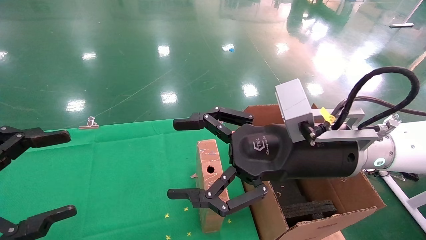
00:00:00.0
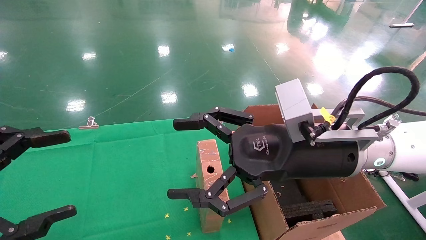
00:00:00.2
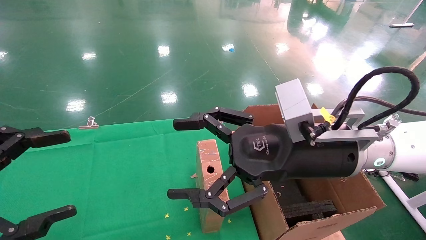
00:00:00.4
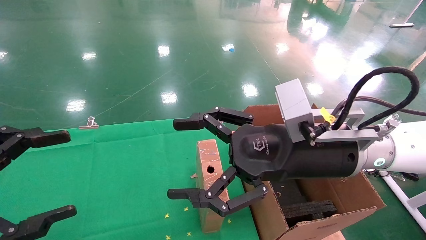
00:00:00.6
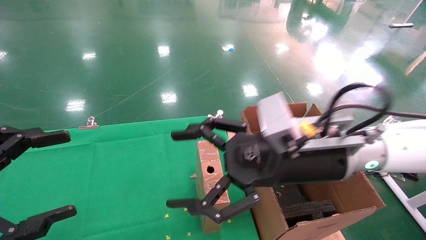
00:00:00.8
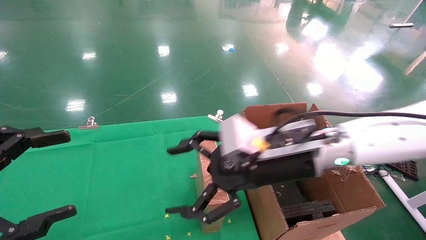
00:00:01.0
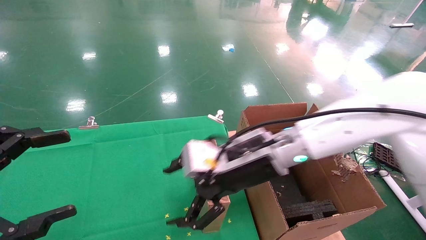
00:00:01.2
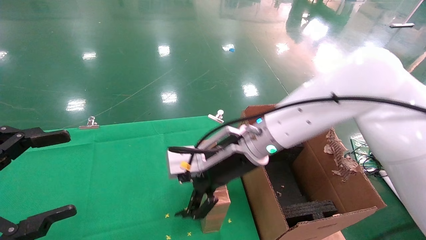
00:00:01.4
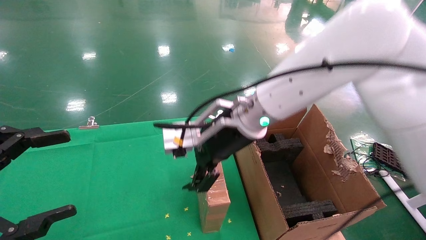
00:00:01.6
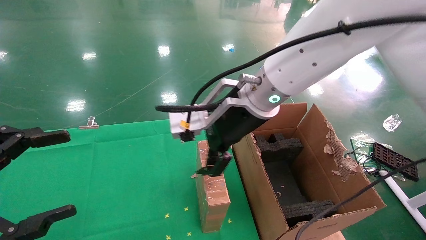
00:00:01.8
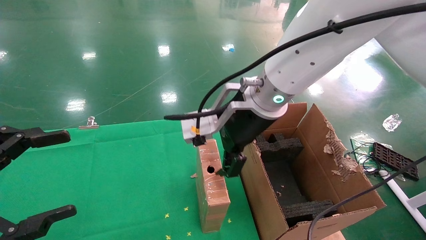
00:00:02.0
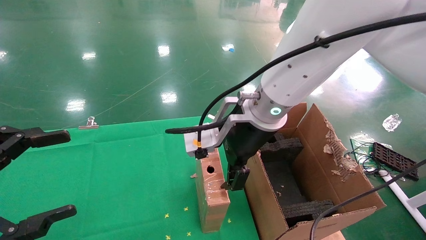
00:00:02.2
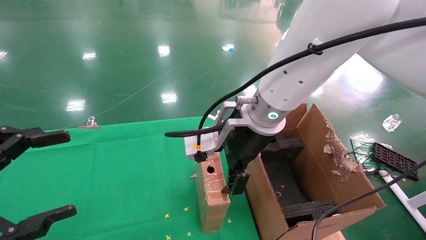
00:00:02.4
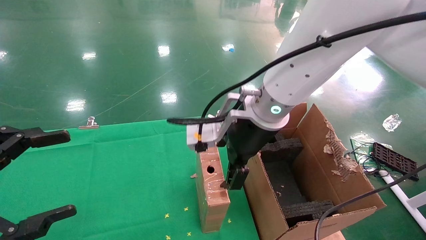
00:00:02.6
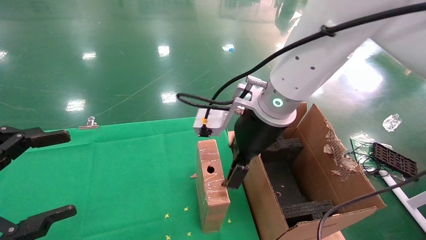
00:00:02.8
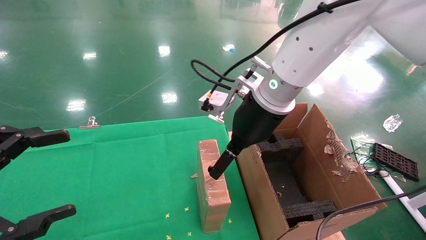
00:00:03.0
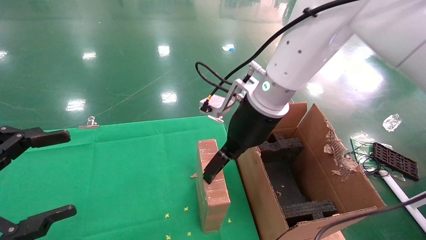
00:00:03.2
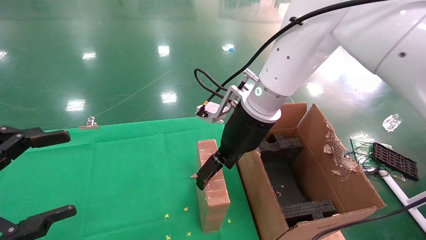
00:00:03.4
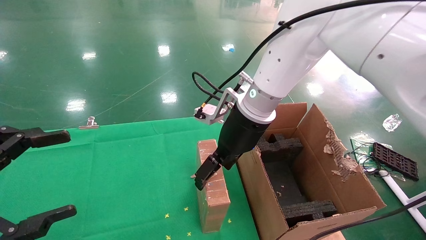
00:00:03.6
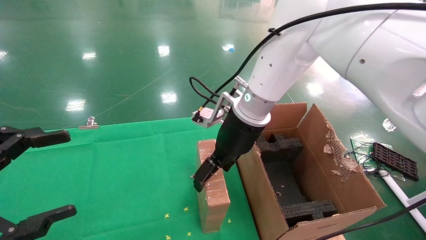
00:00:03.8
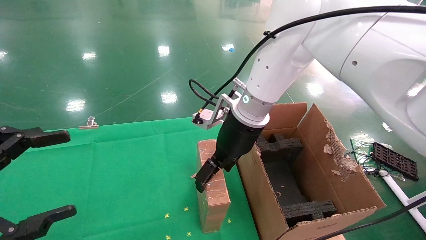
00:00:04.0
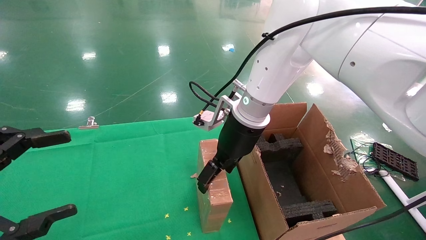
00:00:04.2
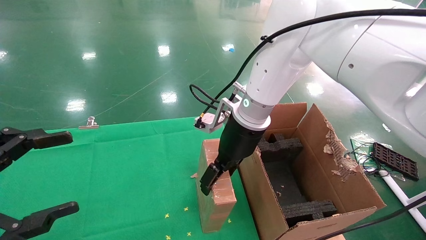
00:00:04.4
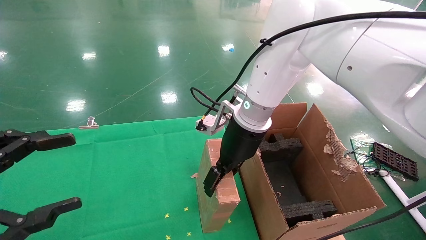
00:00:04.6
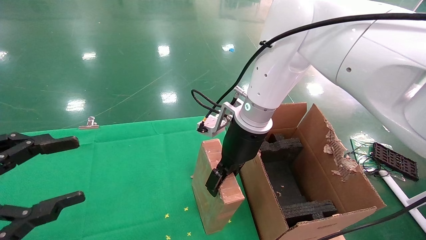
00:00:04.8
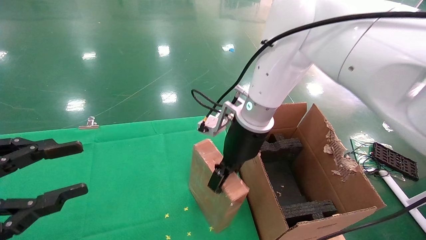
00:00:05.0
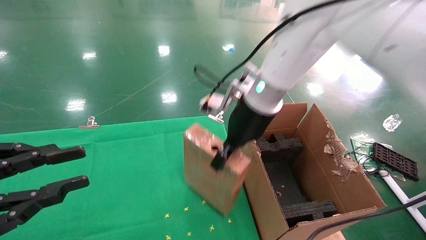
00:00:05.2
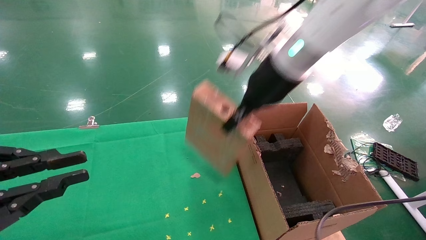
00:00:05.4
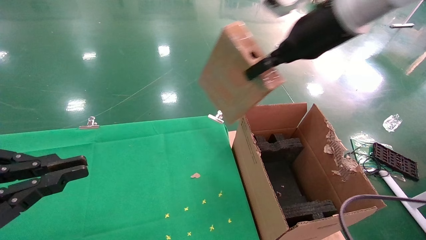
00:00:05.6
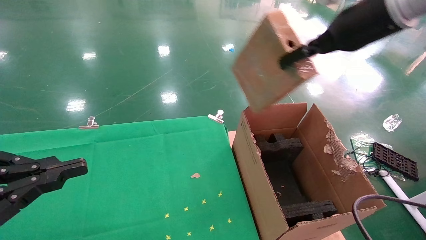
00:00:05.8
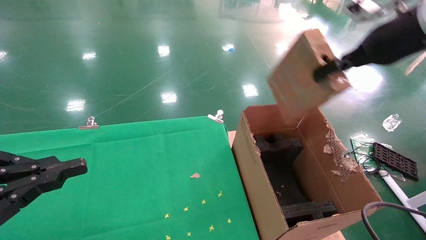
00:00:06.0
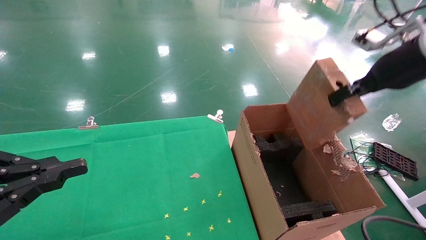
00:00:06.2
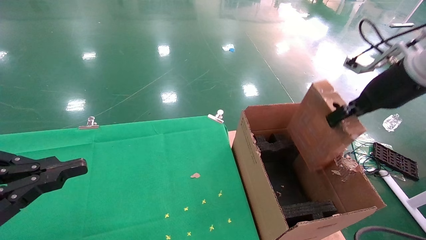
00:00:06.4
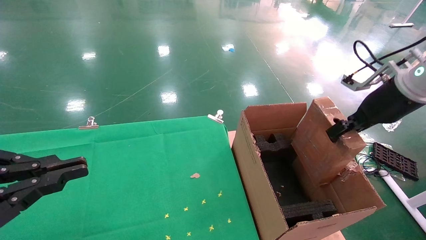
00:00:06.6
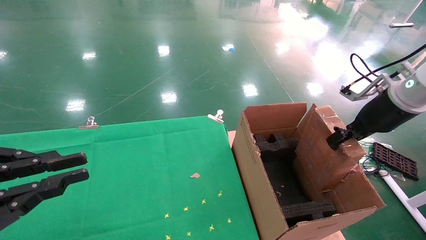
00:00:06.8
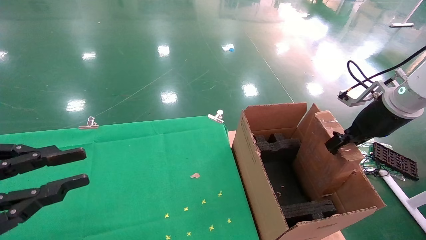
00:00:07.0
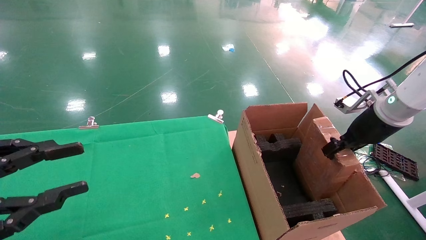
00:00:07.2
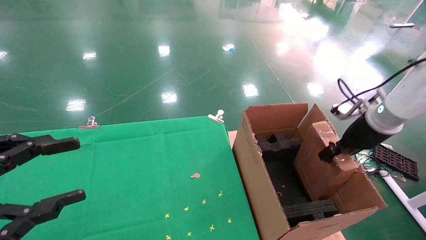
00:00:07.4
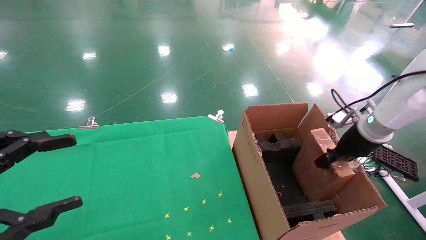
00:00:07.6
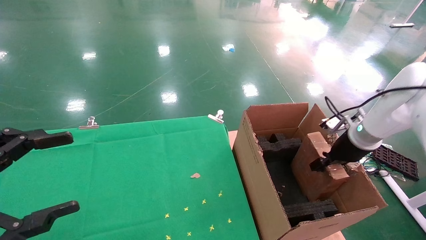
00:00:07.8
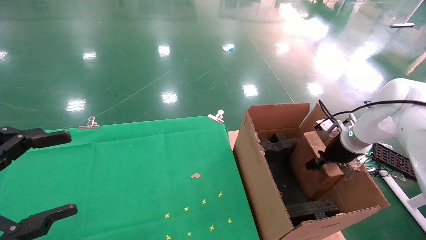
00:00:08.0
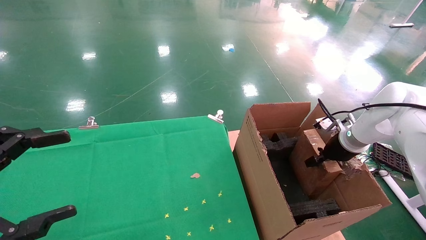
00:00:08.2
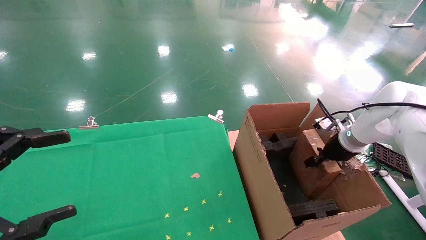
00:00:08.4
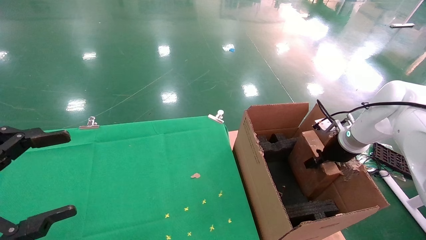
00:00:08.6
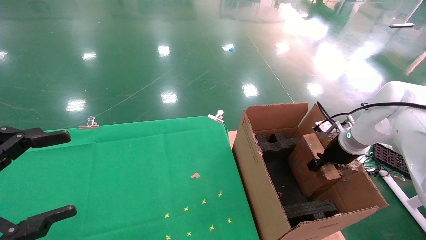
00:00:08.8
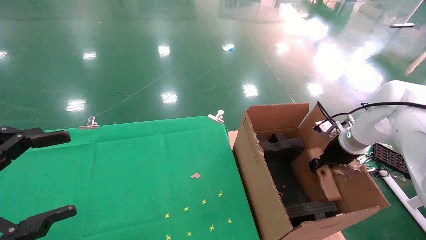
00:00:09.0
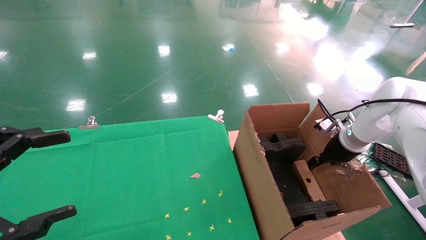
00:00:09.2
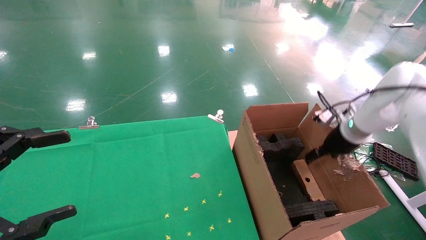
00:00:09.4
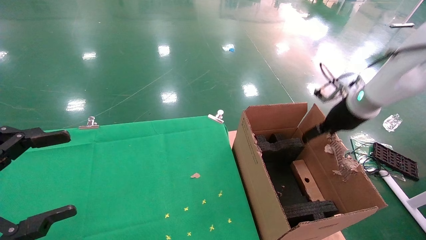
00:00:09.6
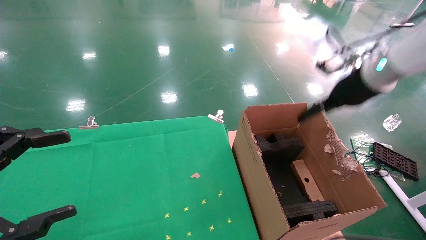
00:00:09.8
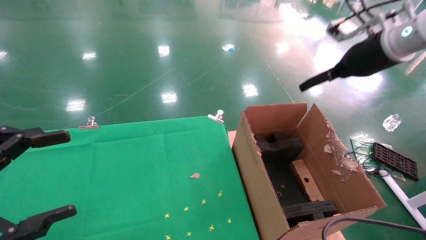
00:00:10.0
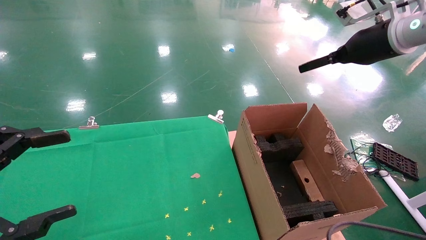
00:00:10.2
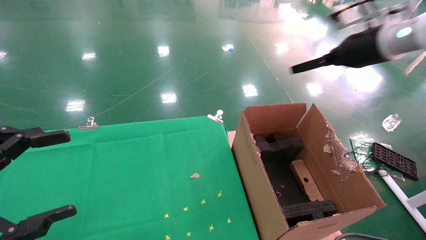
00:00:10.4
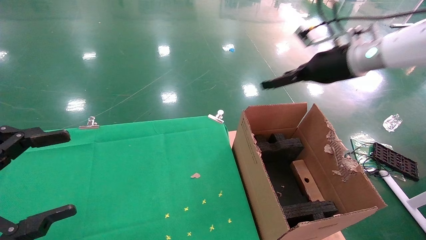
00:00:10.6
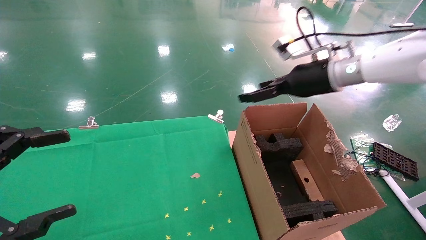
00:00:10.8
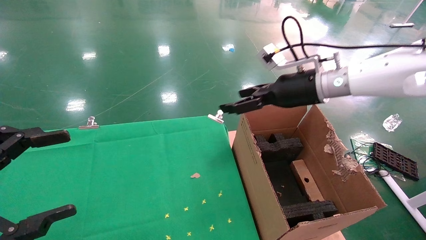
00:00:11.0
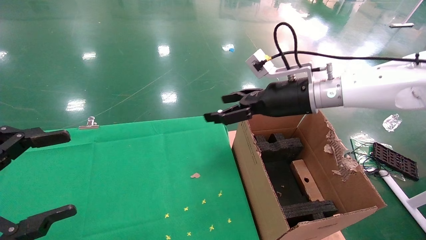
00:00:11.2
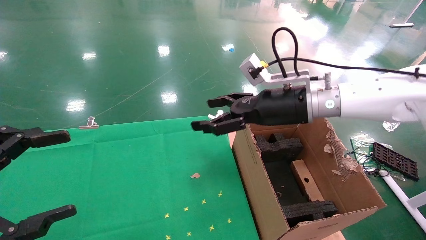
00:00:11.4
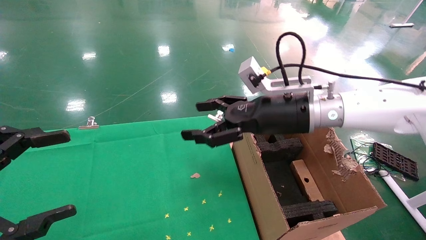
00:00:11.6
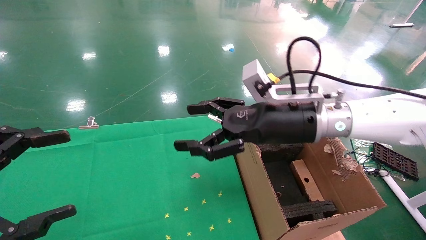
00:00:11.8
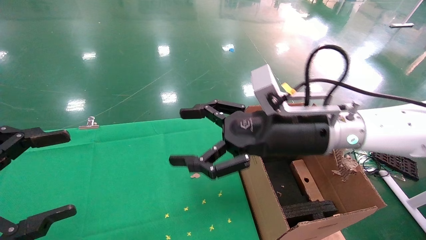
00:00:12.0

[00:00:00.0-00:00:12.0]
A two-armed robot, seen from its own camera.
Task of the whole recording: using a robotic arm to pick up a cardboard box and palace it the carton.
Step, 00:00:00.8 to 00:00:05.0: Pick up the mouse and the power cord paper box.
Step, 00:00:05.2 to 00:00:09.2: Place the mouse and the power cord paper box into the container.
00:00:00.0 to 00:00:01.6: The right gripper moves to the left and forward, roughly 15 cm.
00:00:03.0 to 00:00:04.4: The right gripper ends up some 5 cm from where it was.
00:00:04.4 to 00:00:06.0: The right gripper goes roughly 30 cm to the right and upward, and closes up, while the left gripper closes up.
00:00:06.0 to 00:00:07.6: The right gripper is displaced downward by approximately 20 cm, while the left gripper opens its fingers.
00:00:07.6 to 00:00:09.0: The right gripper changes place by roughly 5 cm.
00:00:09.0 to 00:00:10.4: The right gripper heads upward, covering approximately 20 cm, and opens up.
00:00:10.4 to 00:00:12.0: The right gripper shifts roughly 25 cm to the left, downward and backward.

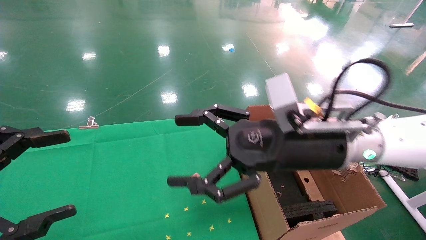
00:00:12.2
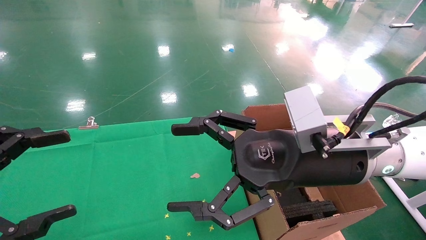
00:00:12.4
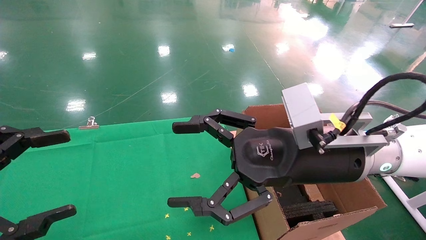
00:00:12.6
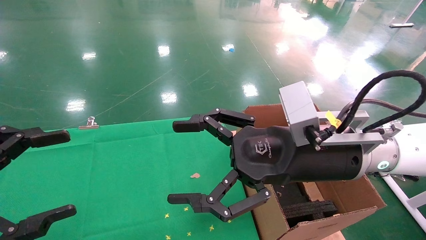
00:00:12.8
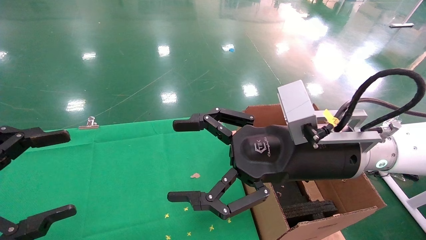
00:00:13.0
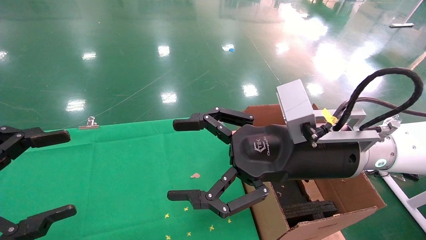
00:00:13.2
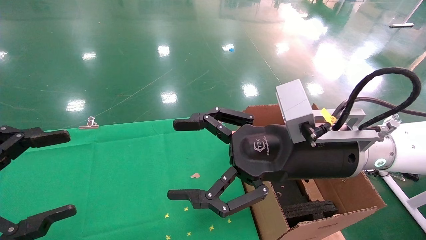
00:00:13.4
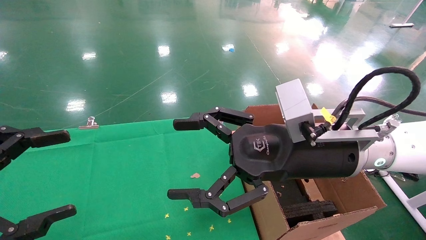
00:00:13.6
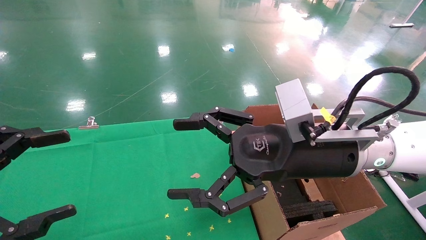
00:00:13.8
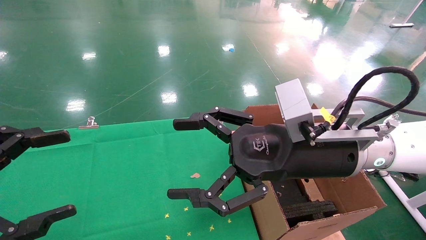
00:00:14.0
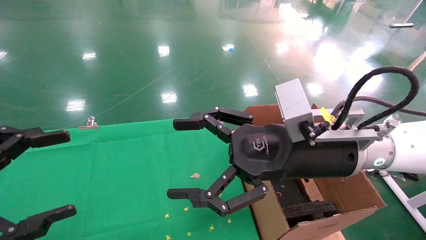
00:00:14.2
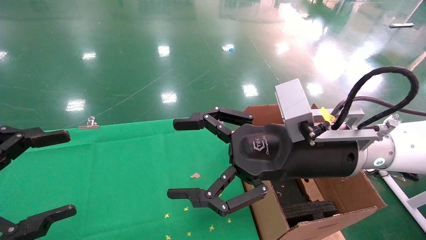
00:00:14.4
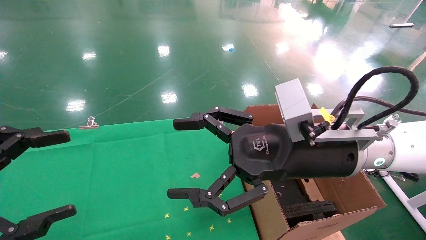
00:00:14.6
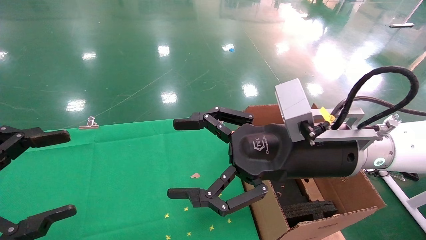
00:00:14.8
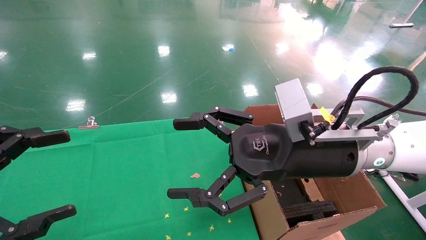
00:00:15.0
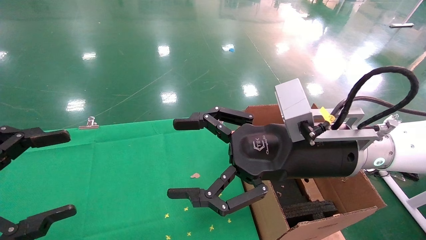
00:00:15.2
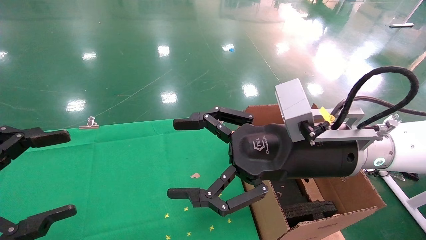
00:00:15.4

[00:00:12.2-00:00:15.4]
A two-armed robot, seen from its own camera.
Task of the whole recording: using a robotic arm to pick up a cardboard box and palace it the carton.
00:00:12.2 to 00:00:13.8: There are only small adjustments of the grippers.
00:00:13.8 to 00:00:15.4: The two grippers keep their place.

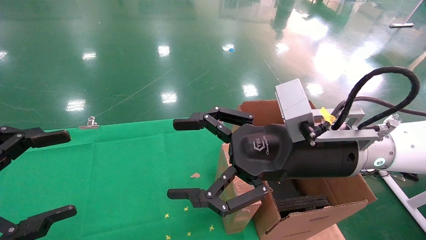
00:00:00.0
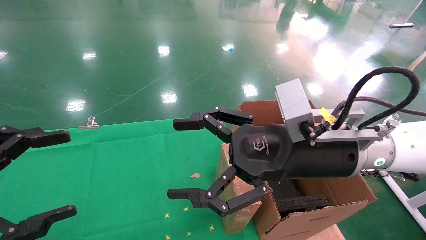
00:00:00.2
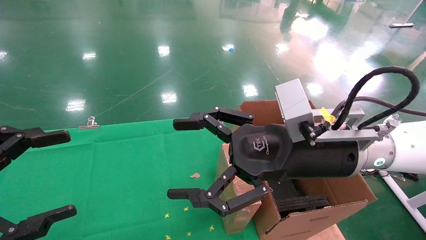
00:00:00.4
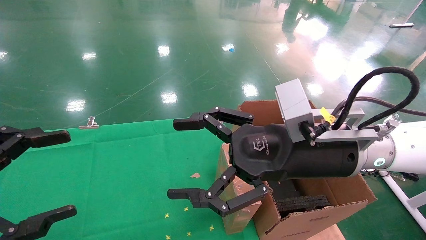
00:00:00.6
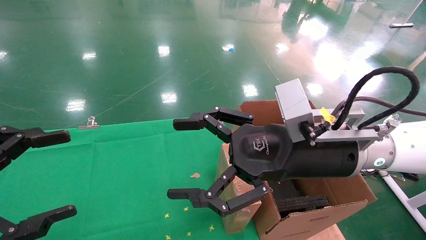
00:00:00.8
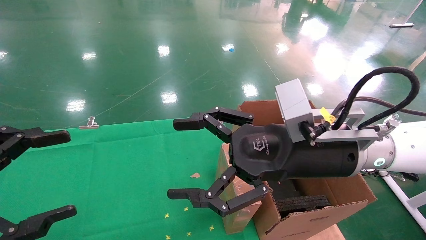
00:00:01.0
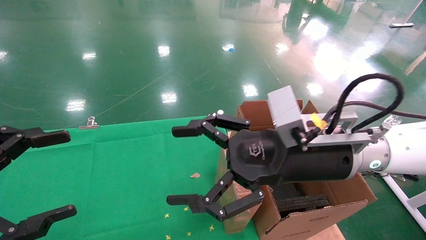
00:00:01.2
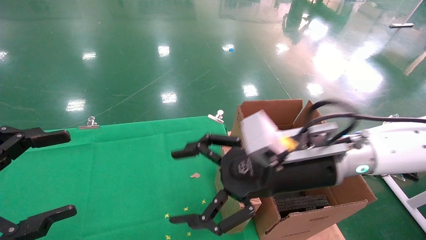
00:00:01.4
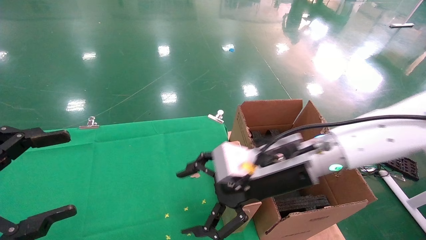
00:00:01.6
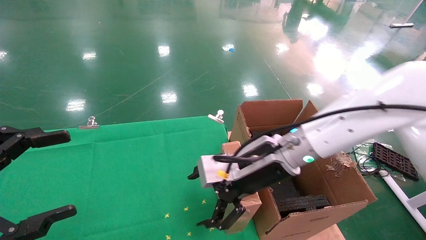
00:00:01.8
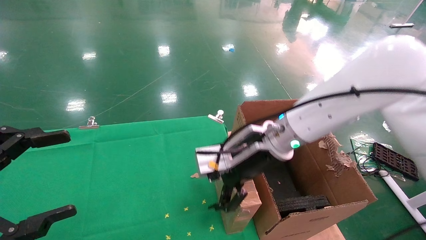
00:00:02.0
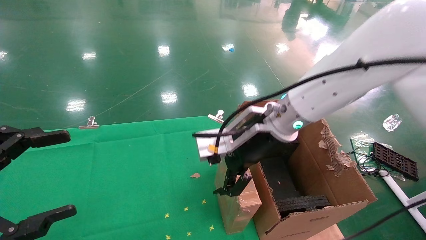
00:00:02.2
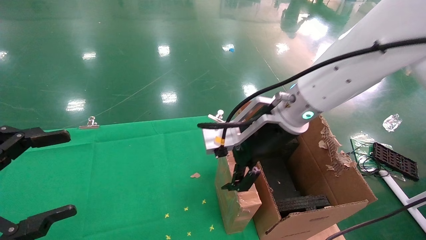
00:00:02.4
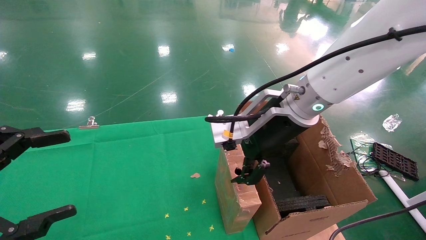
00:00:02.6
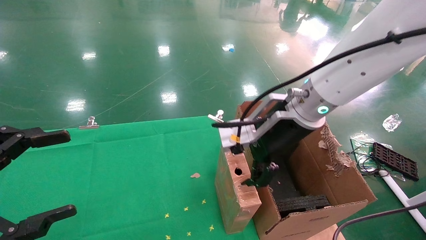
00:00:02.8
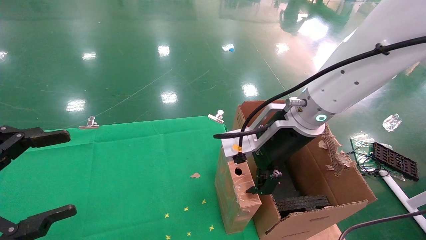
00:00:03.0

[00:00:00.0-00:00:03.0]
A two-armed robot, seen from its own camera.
Task of the whole recording: using a robotic arm to pick up a cardboard box and palace it the carton.
00:00:00.0 to 00:00:01.6: The right gripper moves some 5 cm.
00:00:01.6 to 00:00:03.0: The right gripper moves upward, about 5 cm.
